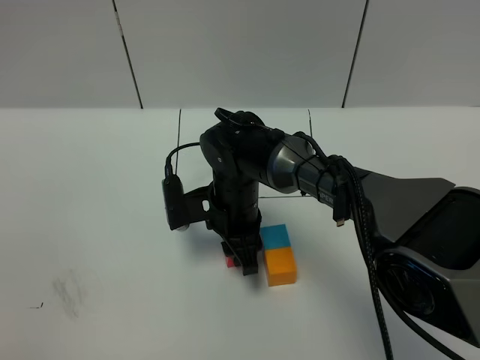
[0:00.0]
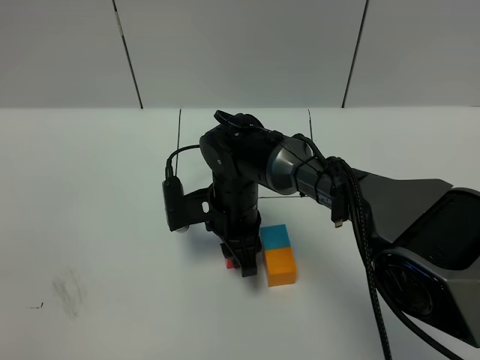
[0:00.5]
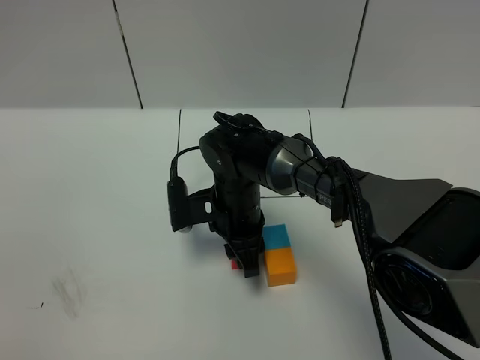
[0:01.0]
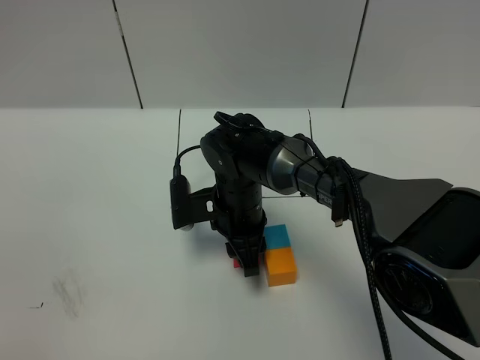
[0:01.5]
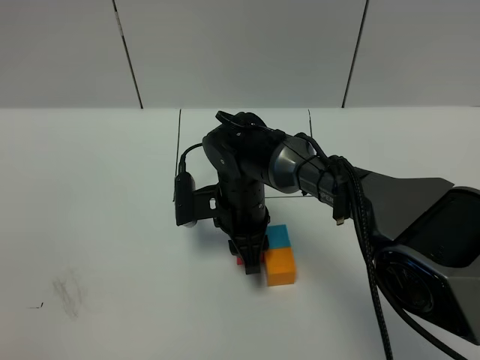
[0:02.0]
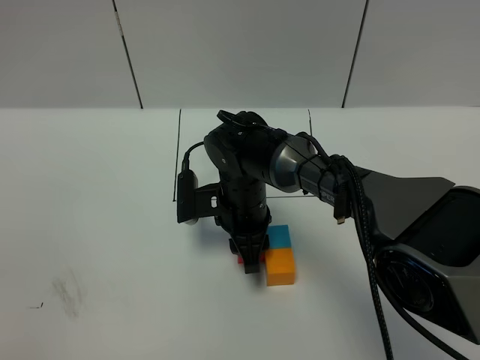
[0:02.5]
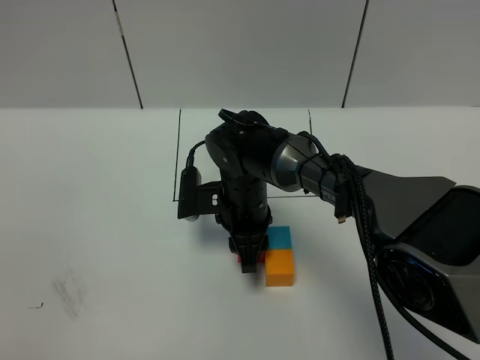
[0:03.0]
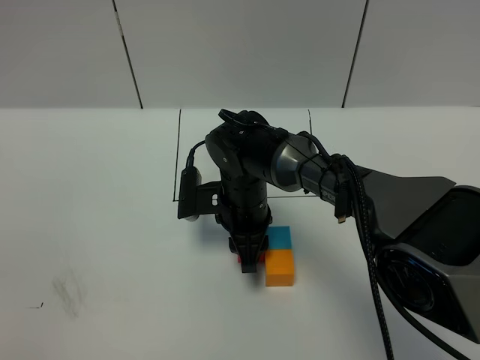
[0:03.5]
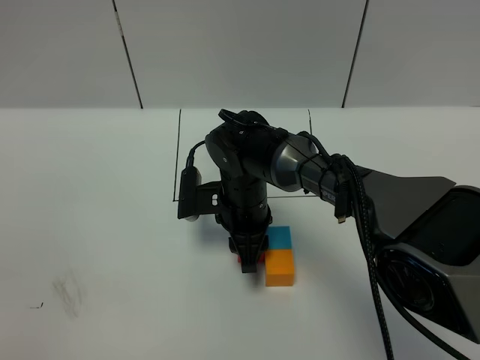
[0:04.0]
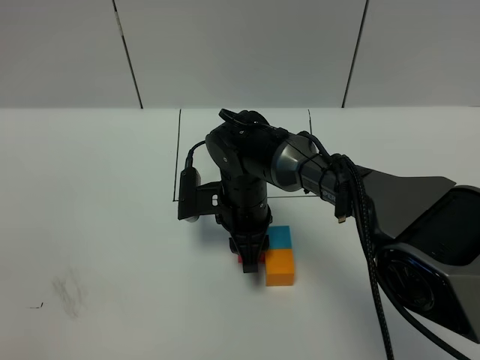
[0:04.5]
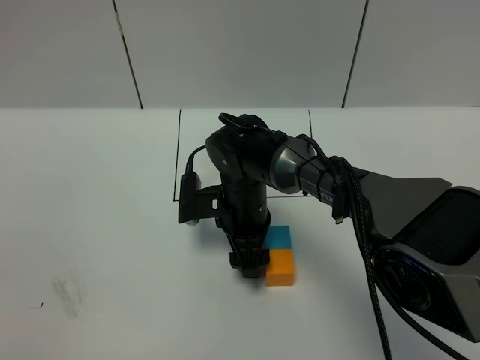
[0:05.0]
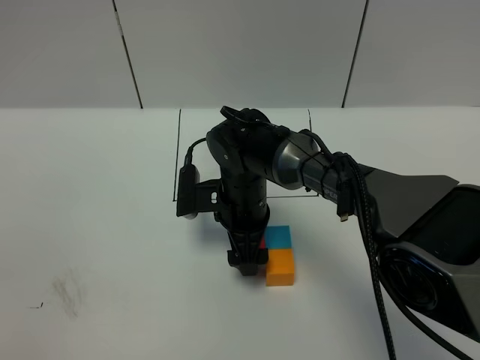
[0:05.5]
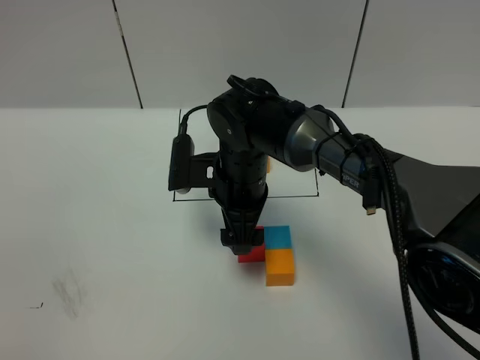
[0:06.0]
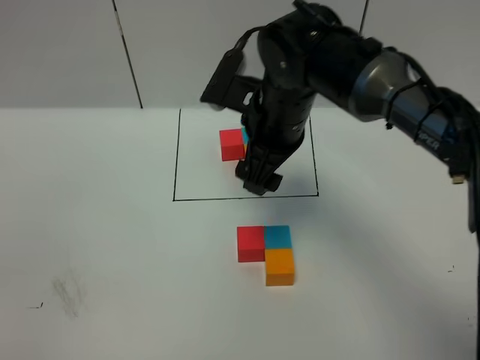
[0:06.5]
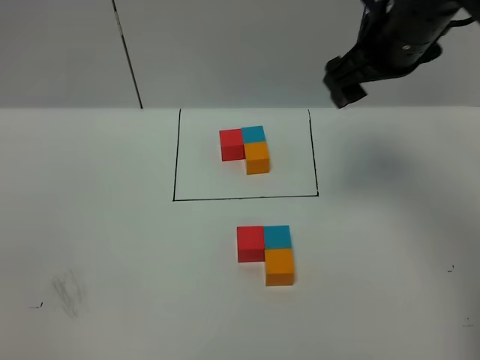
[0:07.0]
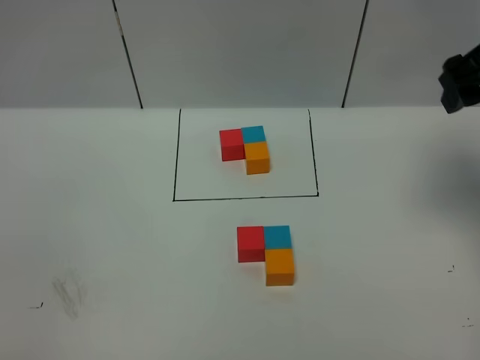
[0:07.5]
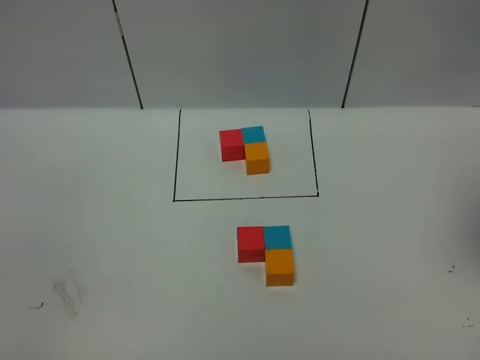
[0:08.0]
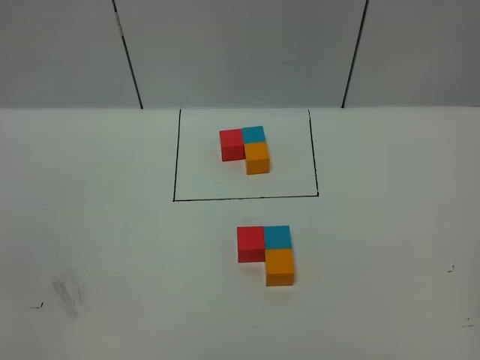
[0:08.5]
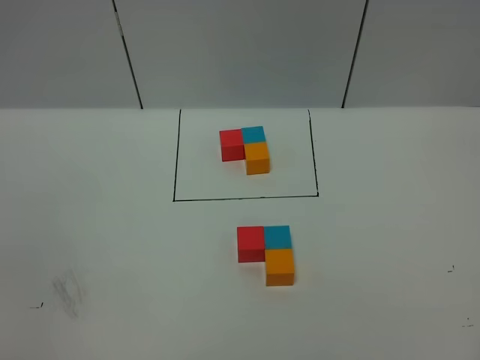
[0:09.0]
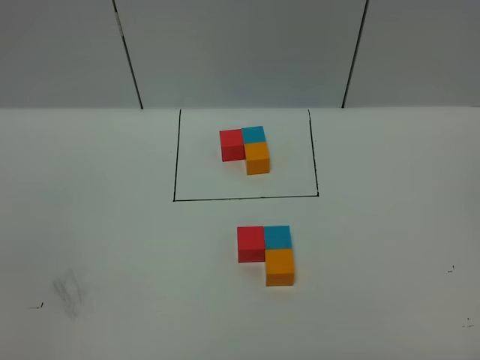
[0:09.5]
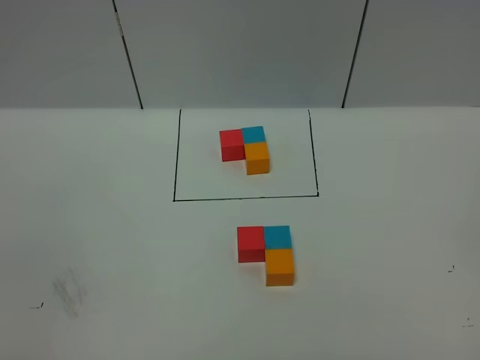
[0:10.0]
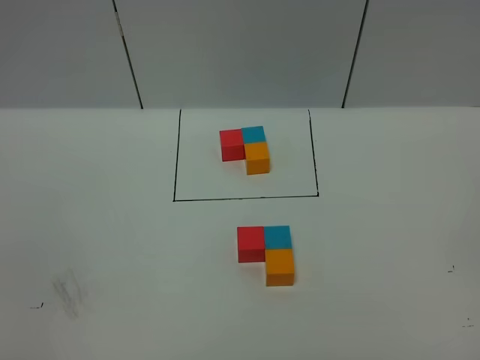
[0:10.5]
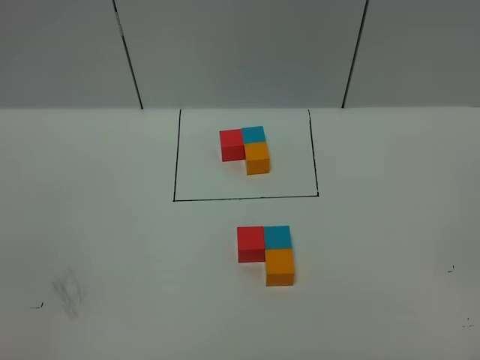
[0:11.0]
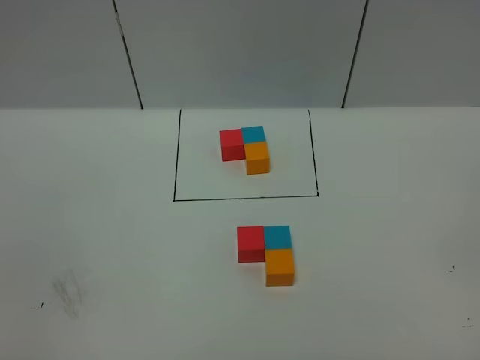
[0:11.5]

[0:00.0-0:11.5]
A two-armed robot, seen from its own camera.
Task of the whole recording: According to the building block template in front, assemble the scattered blocks together.
0:00.0 to 0:04.0: The grippers make only small movements.
0:04.0 to 0:06.0: The right gripper shifts about 5 cm upward, and opens.
0:06.0 to 0:07.5: The right gripper is displaced to the right and upward by some 35 cm.
0:07.5 to 0:09.5: The right gripper moves backward, some 35 cm.
